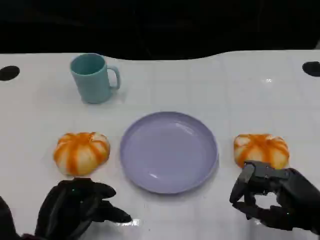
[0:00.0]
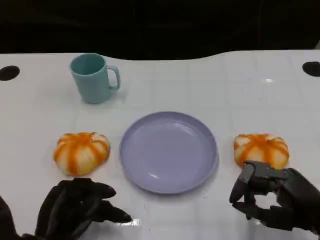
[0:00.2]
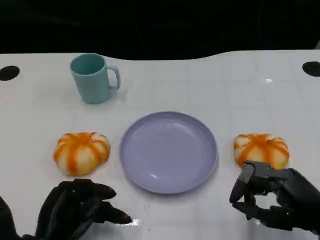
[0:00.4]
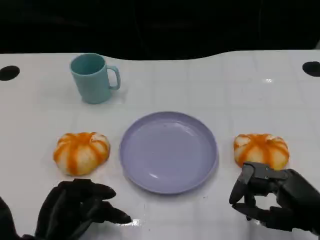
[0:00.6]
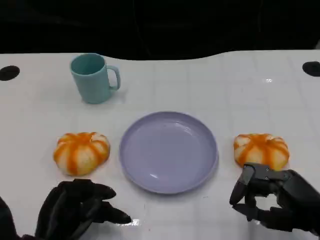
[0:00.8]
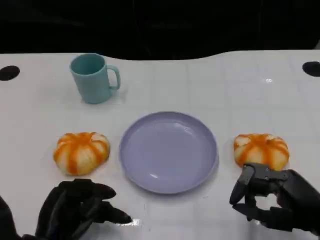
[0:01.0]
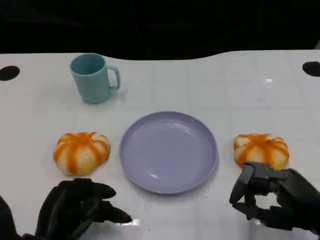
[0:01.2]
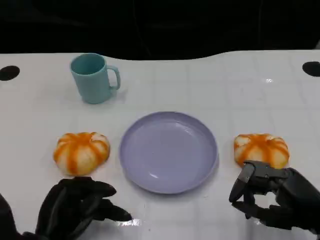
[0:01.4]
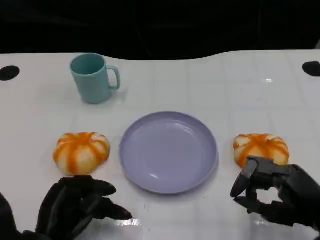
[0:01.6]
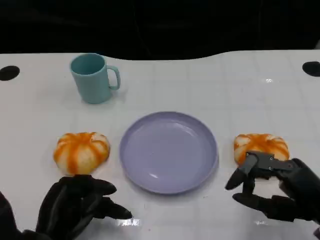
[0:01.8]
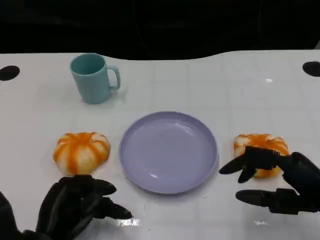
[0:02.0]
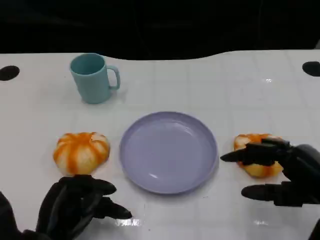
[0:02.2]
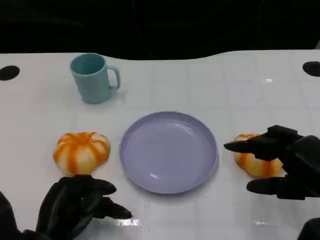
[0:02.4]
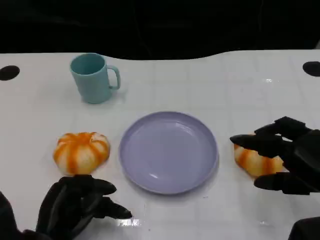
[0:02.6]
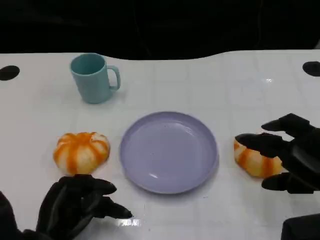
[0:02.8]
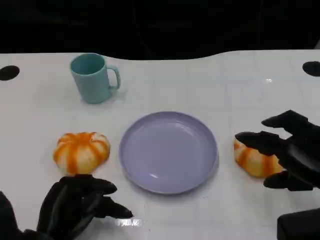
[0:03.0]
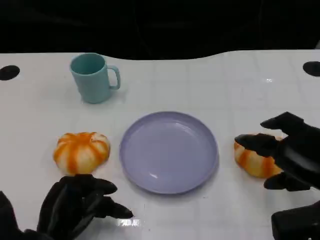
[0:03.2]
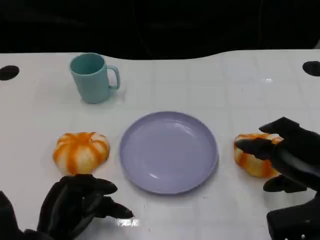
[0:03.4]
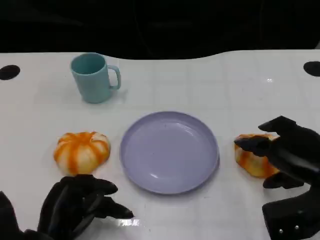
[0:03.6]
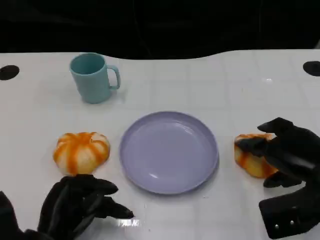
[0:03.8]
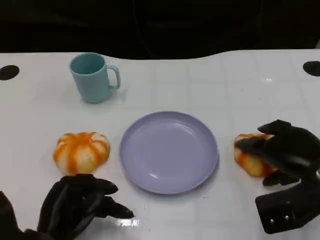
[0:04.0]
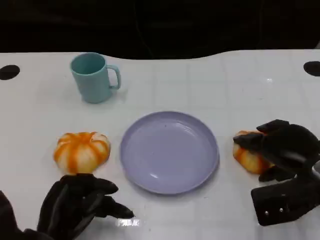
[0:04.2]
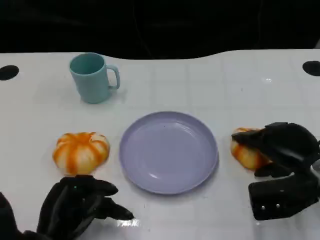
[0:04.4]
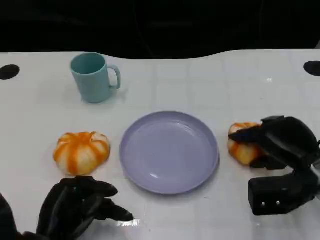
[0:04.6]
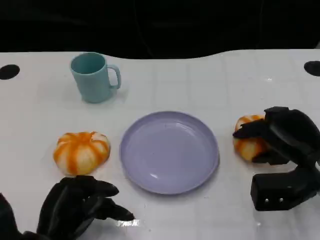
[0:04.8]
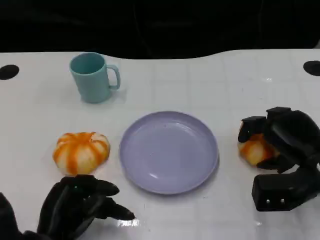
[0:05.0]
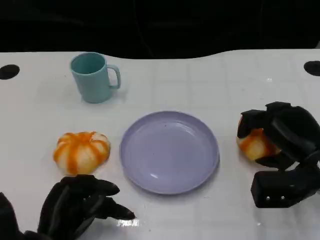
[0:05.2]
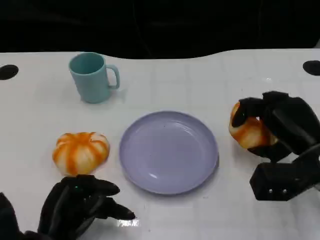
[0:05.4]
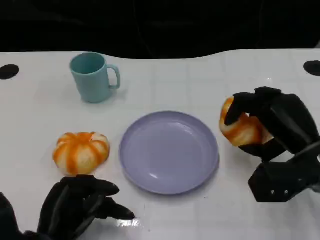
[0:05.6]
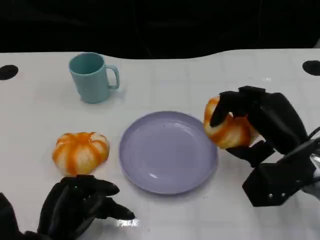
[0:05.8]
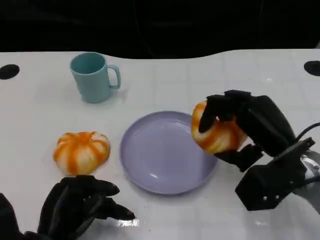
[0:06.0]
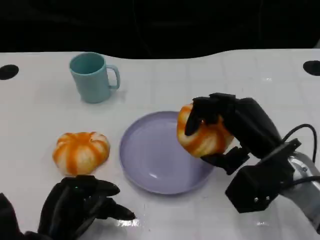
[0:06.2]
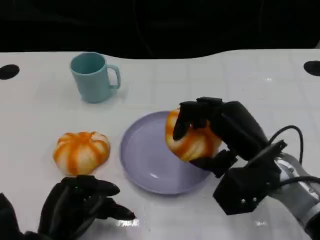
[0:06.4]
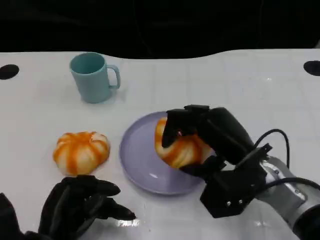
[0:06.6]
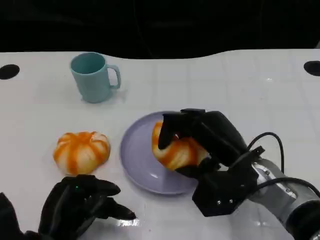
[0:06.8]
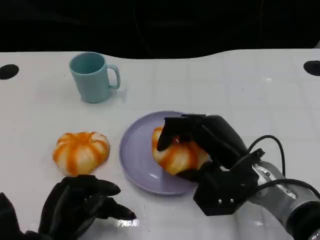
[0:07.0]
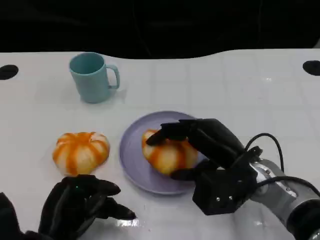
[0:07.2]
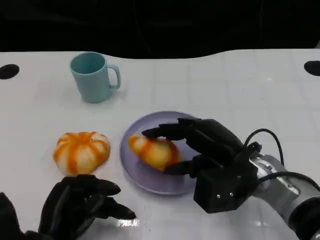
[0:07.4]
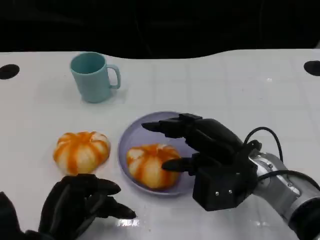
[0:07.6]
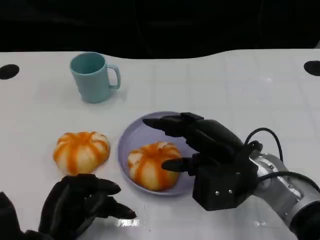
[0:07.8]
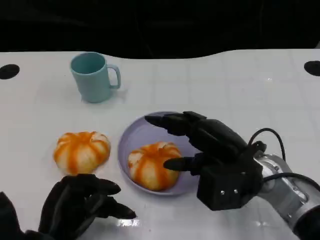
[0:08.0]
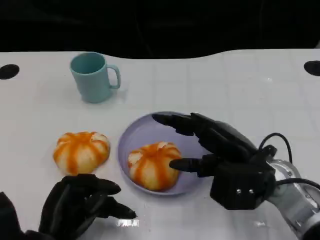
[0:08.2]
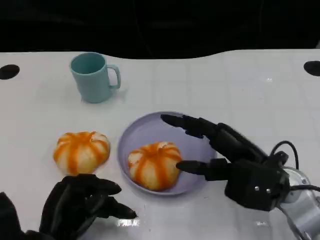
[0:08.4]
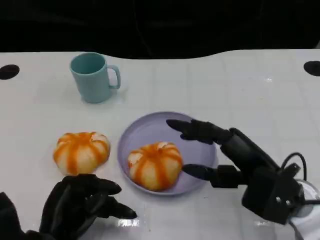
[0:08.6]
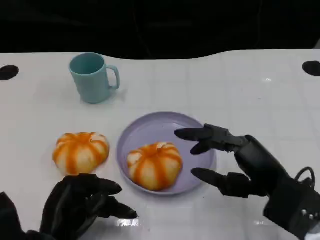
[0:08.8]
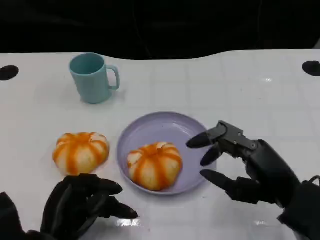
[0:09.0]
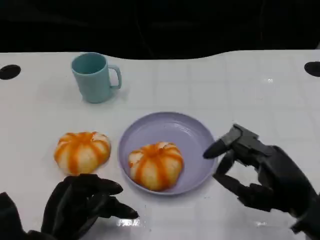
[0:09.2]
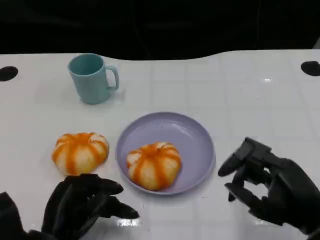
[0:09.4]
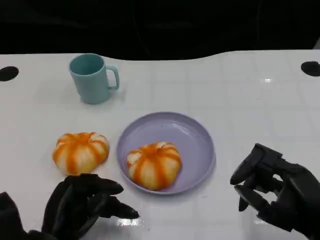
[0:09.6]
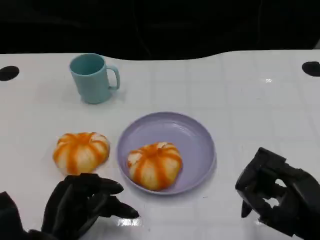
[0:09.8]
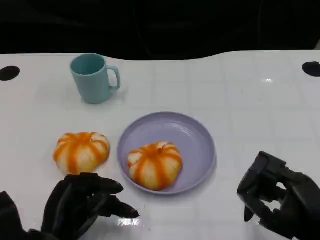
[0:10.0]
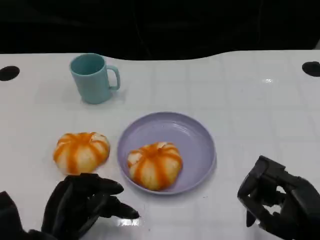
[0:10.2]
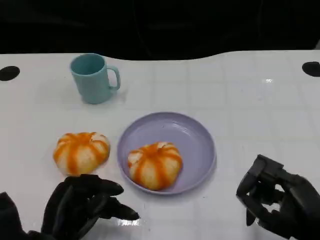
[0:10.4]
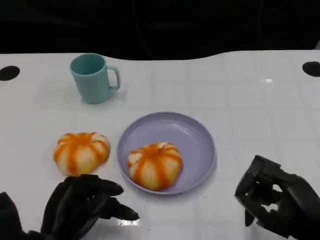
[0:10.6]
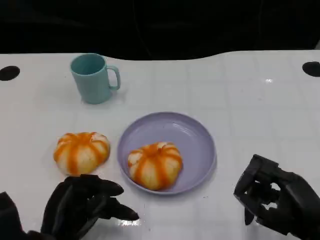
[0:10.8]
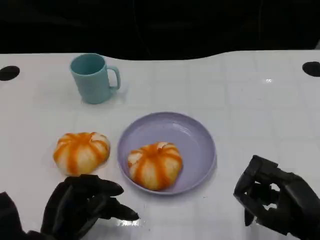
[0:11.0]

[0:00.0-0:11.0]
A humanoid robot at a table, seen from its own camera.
Task of the whole recording: Grasp the bread from the table and place it into the plate.
0:00.0 to 0:01.6: Both hands stay about where they are.
0:01.6 to 0:03.2: The right hand moves some 5 cm.
0:03.2 to 0:04.8: The right hand is displaced forward by about 5 cm.
0:04.8 to 0:06.2: The right hand heads to the left, covering some 5 cm.
0:07.8 to 0:09.4: The right hand shifts roughly 15 cm backward and to the right.
0:09.4 to 0:11.0: The hands make only small movements.

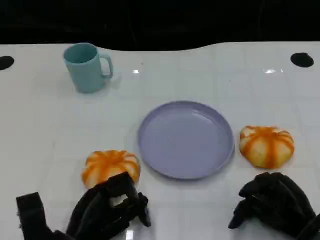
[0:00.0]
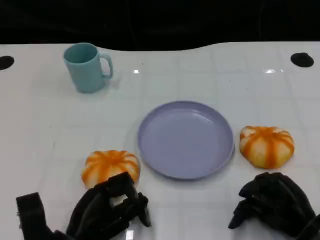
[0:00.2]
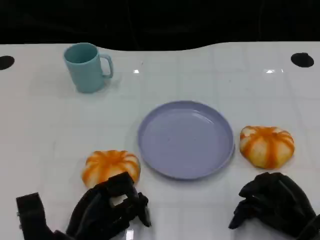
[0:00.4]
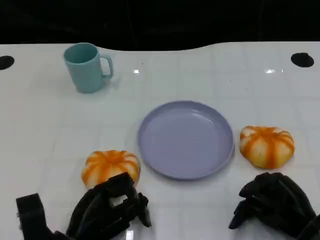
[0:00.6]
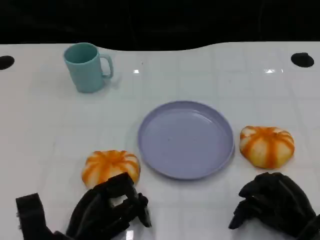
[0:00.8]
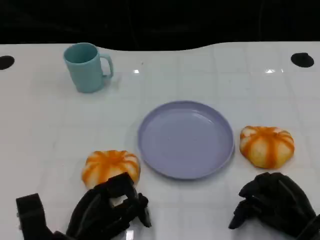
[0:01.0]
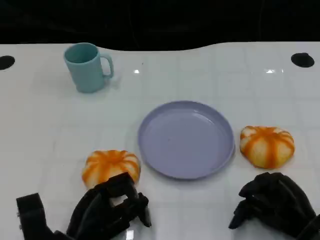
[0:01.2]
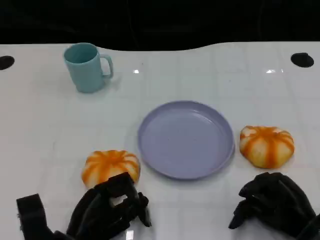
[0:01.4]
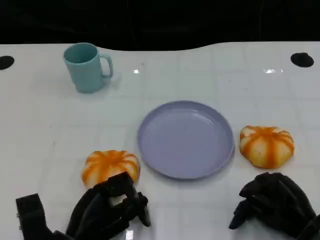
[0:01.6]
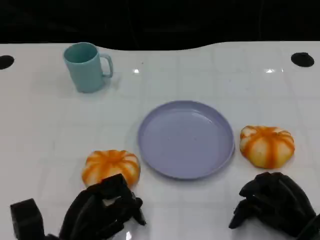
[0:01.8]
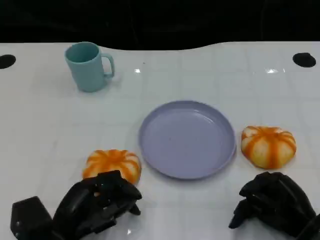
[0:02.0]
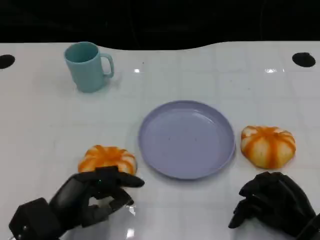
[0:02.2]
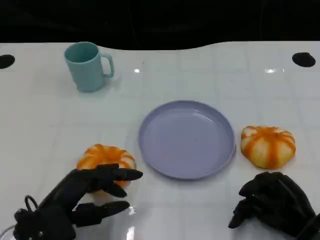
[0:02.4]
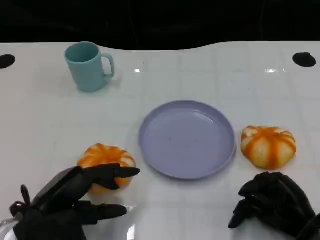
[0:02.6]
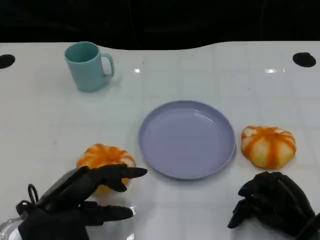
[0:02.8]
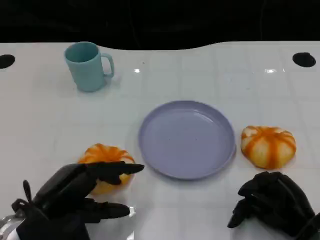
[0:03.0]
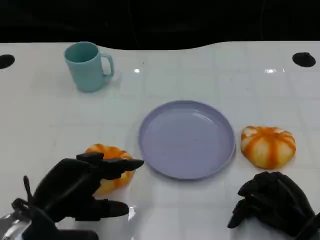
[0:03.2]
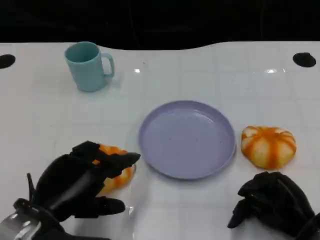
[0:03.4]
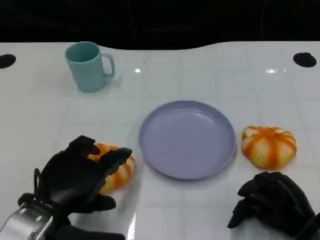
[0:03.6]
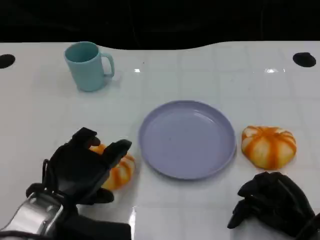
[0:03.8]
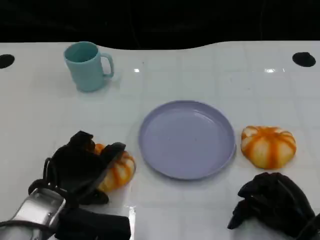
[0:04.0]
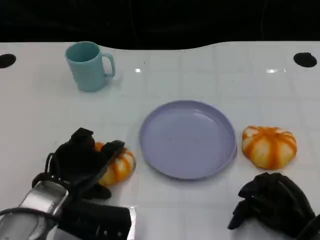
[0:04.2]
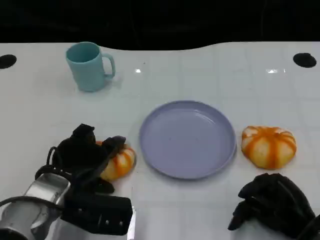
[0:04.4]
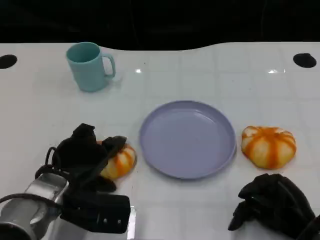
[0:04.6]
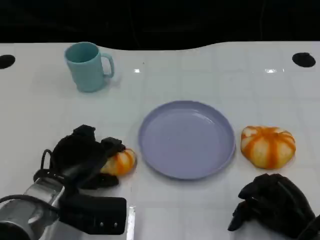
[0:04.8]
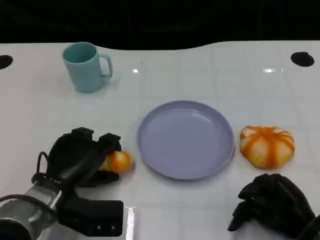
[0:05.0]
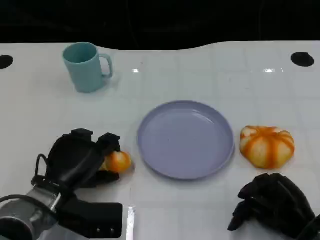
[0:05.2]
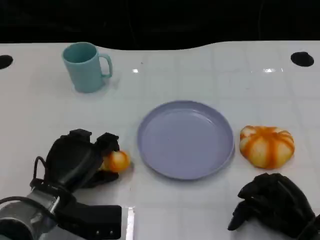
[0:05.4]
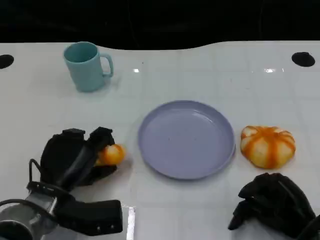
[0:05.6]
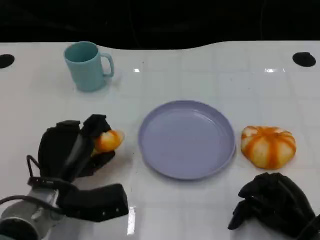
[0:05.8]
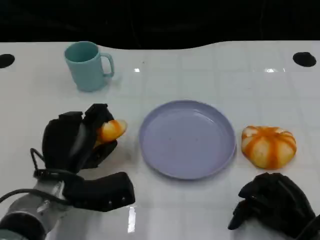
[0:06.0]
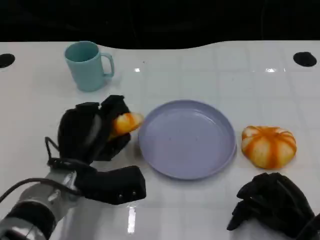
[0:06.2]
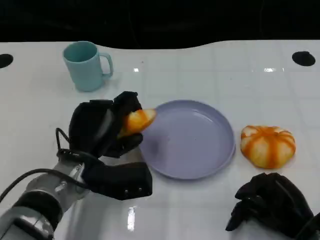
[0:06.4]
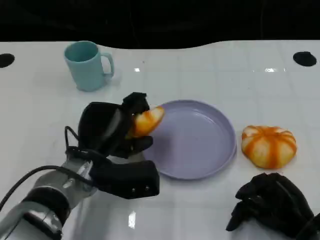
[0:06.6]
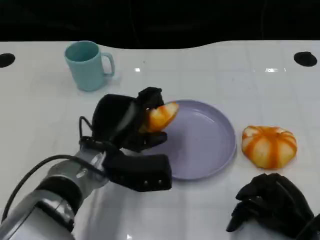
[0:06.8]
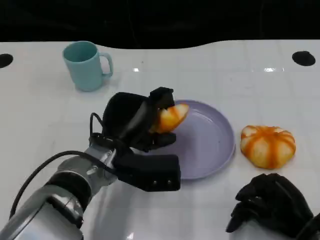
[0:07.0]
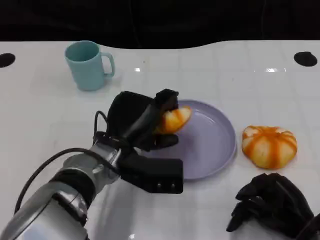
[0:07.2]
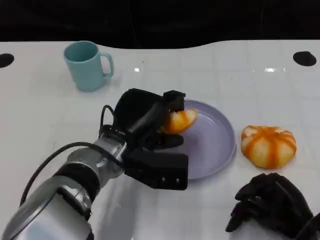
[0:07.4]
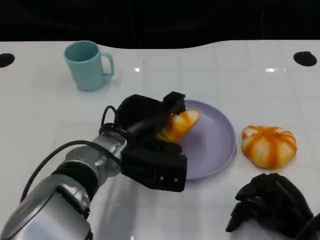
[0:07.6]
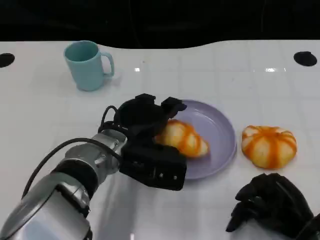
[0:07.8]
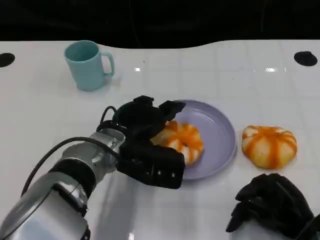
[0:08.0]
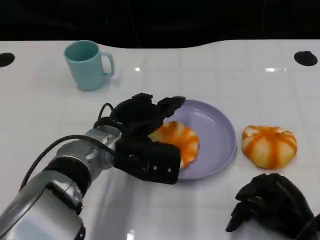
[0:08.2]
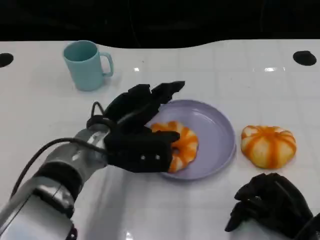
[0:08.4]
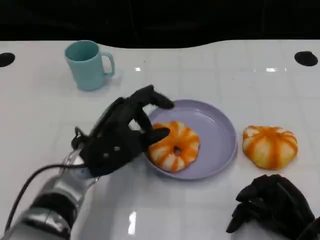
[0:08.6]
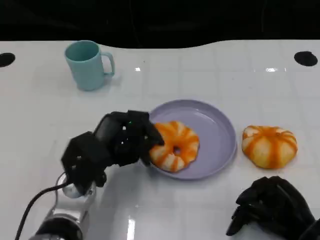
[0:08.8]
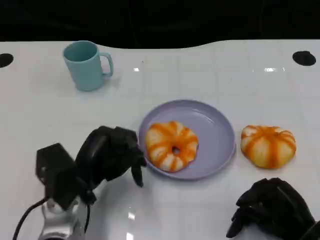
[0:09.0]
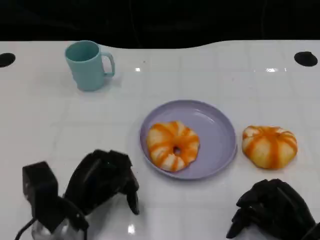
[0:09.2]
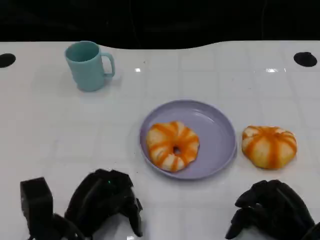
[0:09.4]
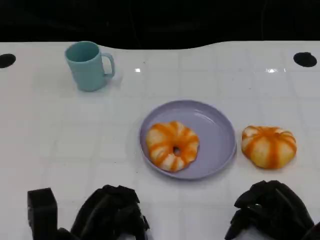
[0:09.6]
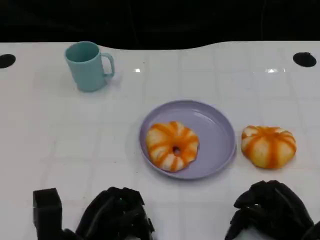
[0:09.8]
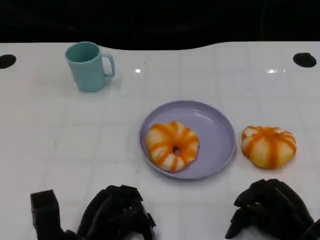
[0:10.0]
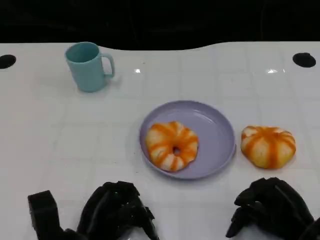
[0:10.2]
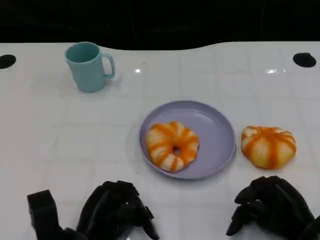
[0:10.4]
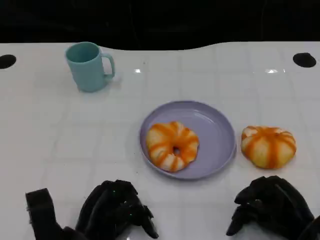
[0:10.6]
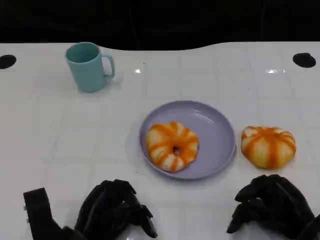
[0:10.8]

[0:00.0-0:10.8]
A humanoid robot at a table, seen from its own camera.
Task of the whole recording: Grasp the bread from the table and place it into the plate.
0:00.0 to 0:01.6: The two hands keep their place.
0:01.6 to 0:03.0: The left hand goes approximately 10 cm upward.
0:03.0 to 0:04.6: The left hand heads forward, covering roughly 5 cm.
0:06.2 to 0:07.8: The left hand goes roughly 5 cm to the right.
0:07.8 to 0:09.2: The left hand shifts about 15 cm to the left, backward and downward.
